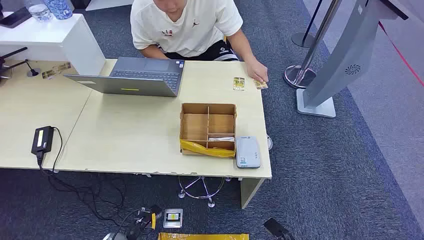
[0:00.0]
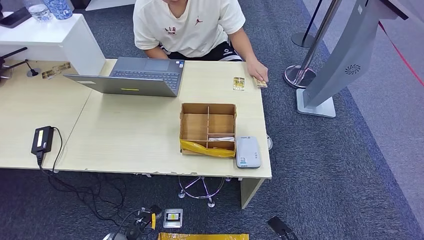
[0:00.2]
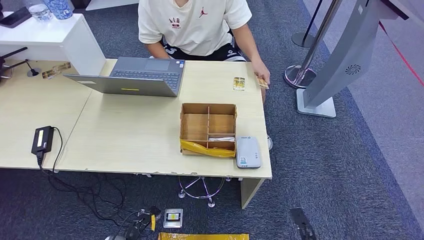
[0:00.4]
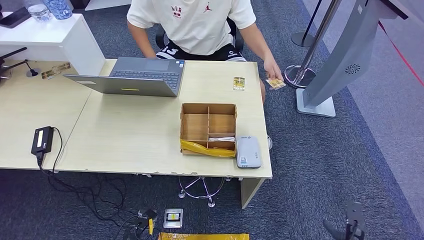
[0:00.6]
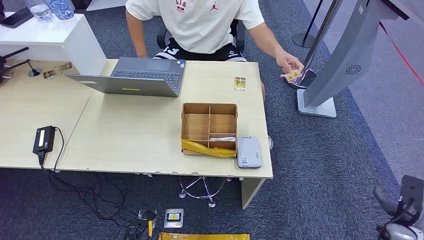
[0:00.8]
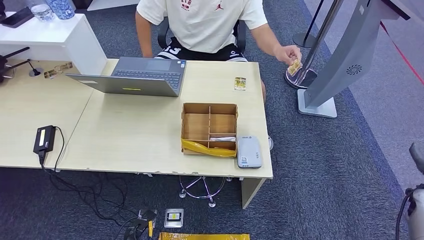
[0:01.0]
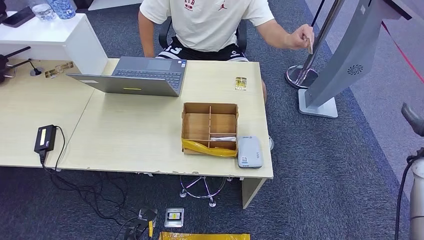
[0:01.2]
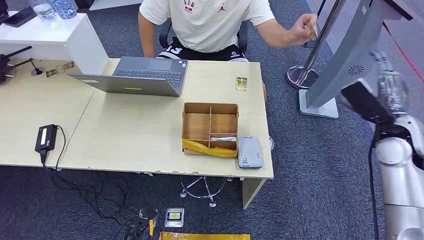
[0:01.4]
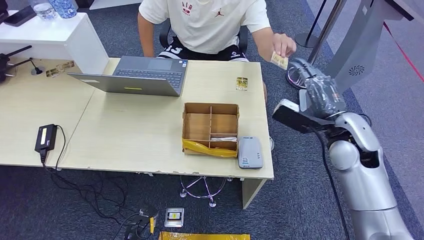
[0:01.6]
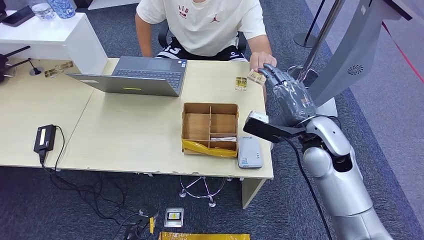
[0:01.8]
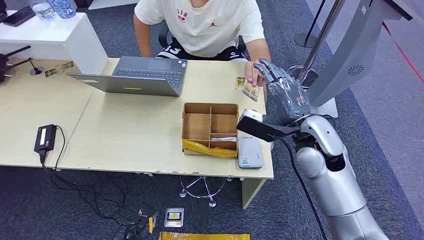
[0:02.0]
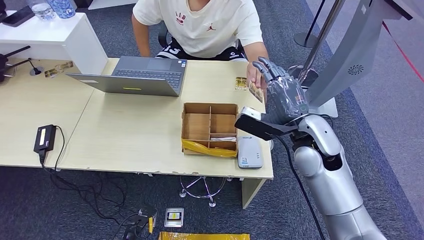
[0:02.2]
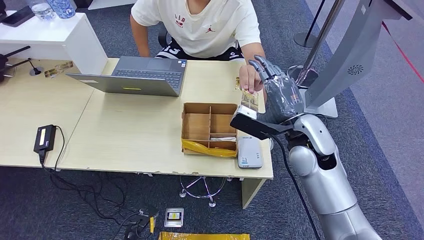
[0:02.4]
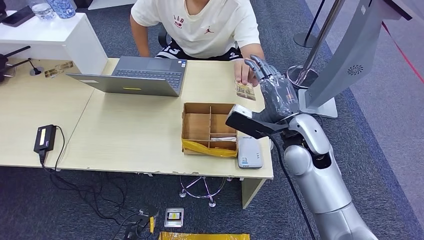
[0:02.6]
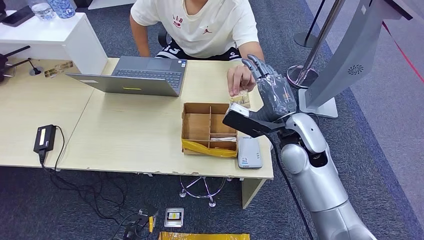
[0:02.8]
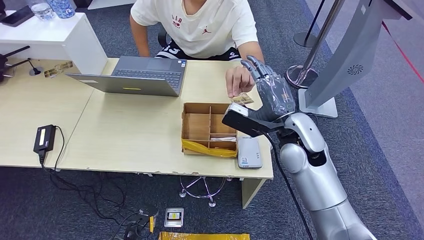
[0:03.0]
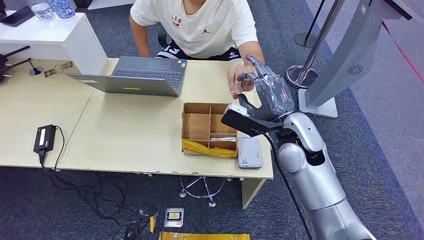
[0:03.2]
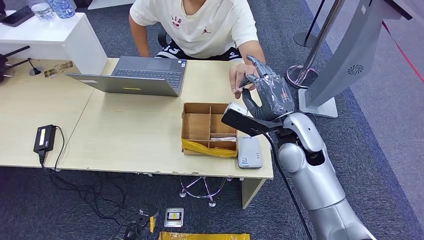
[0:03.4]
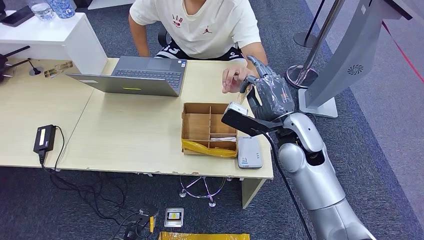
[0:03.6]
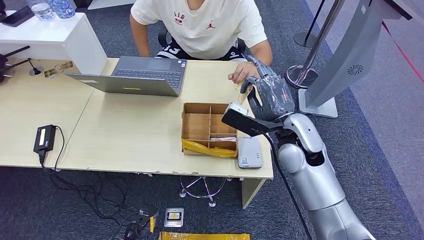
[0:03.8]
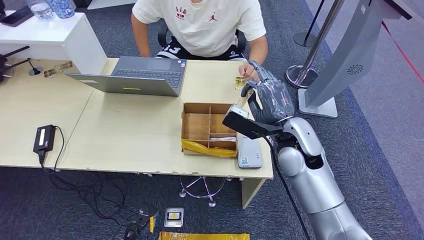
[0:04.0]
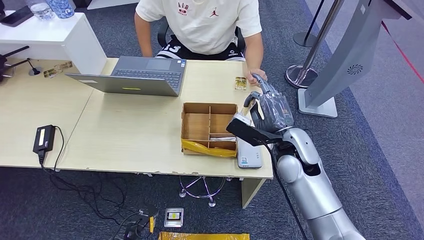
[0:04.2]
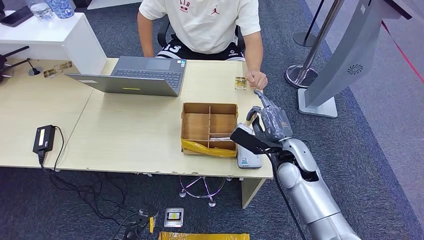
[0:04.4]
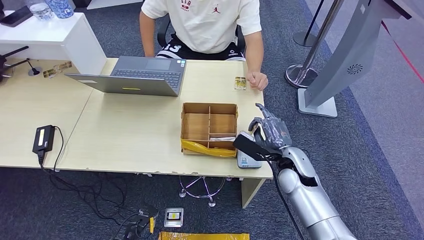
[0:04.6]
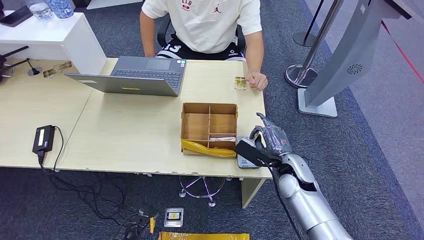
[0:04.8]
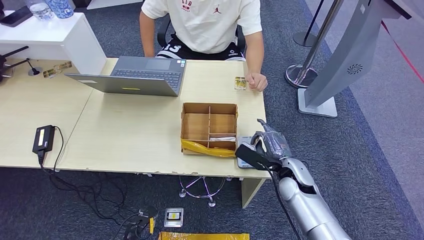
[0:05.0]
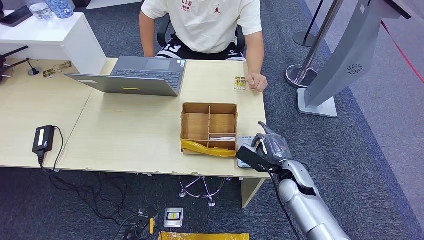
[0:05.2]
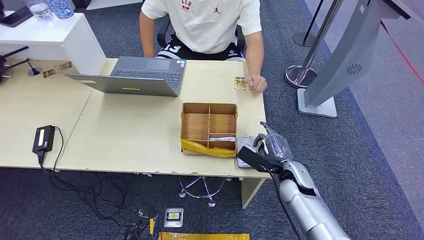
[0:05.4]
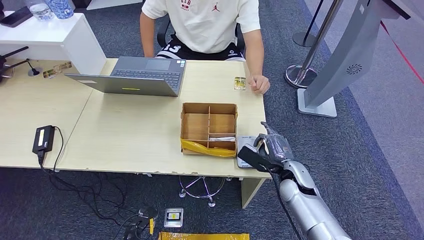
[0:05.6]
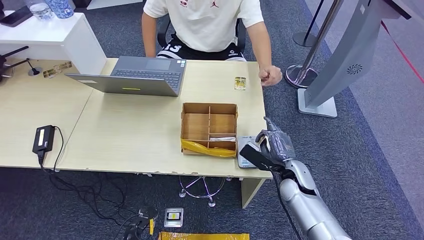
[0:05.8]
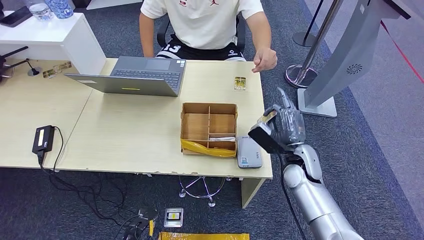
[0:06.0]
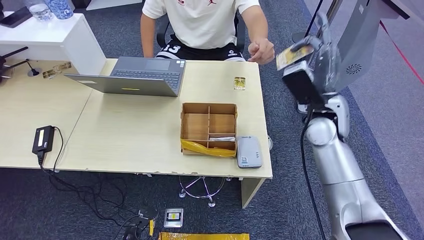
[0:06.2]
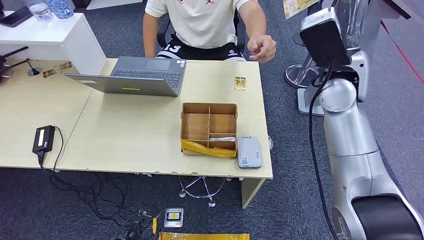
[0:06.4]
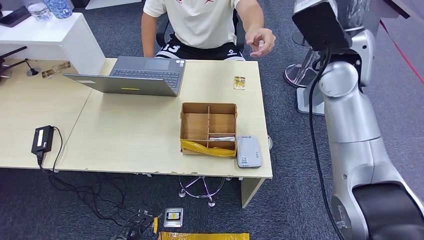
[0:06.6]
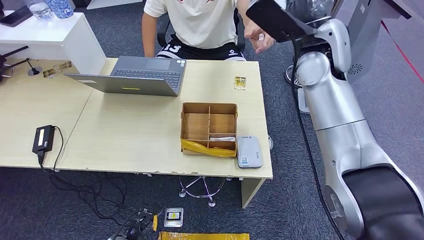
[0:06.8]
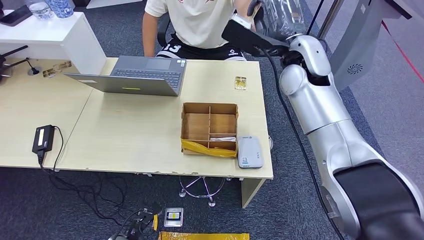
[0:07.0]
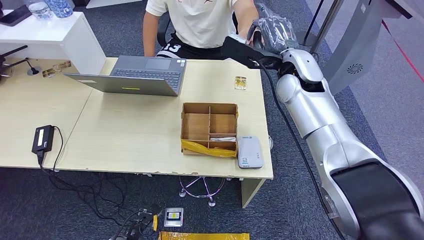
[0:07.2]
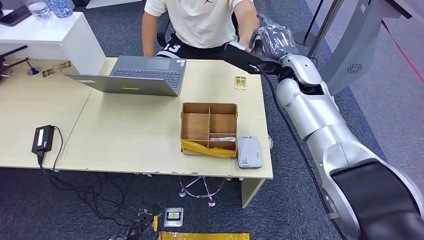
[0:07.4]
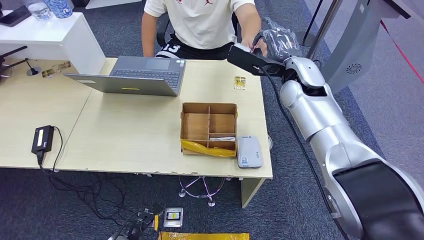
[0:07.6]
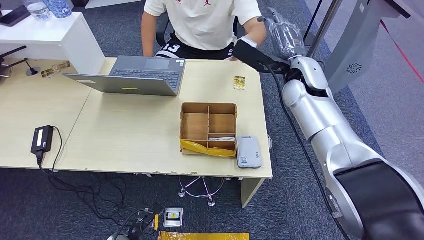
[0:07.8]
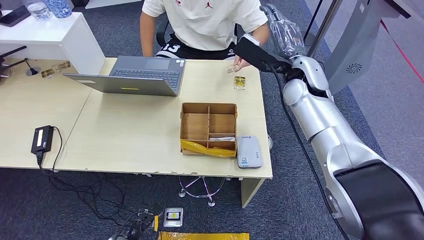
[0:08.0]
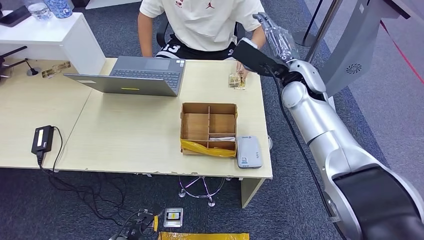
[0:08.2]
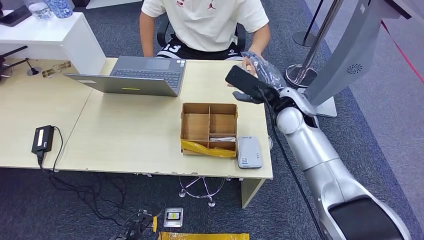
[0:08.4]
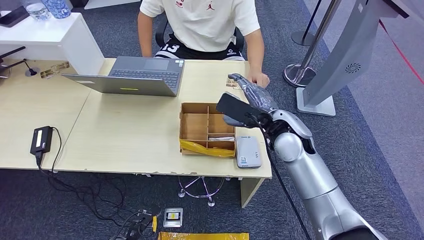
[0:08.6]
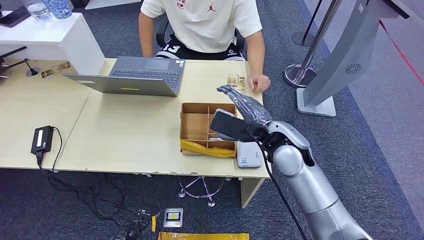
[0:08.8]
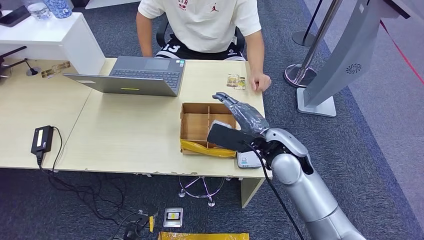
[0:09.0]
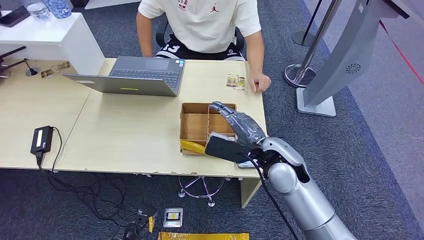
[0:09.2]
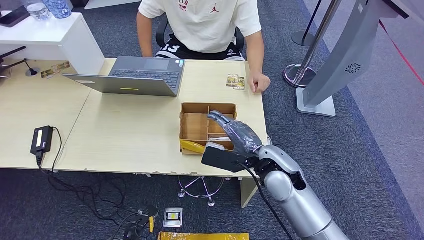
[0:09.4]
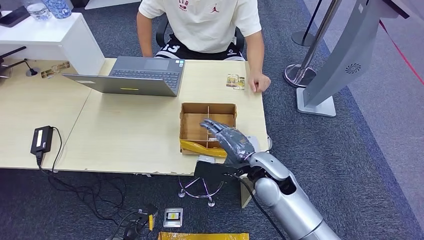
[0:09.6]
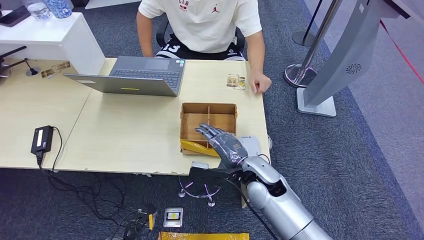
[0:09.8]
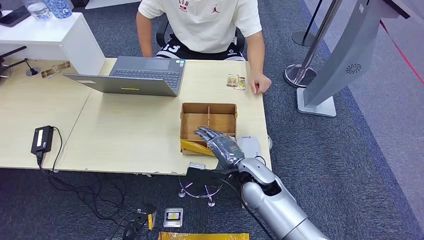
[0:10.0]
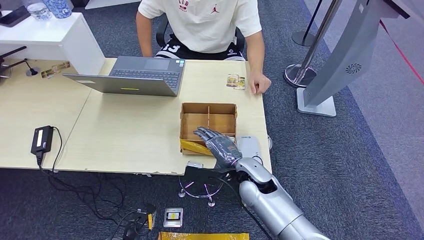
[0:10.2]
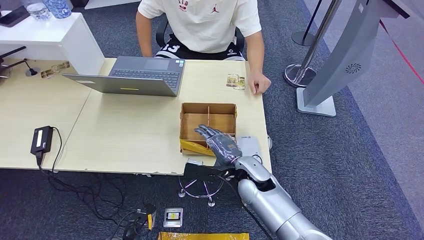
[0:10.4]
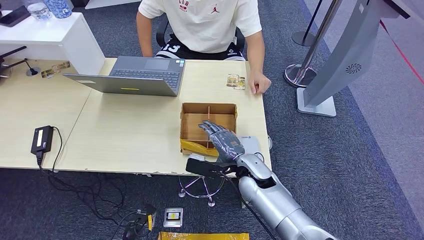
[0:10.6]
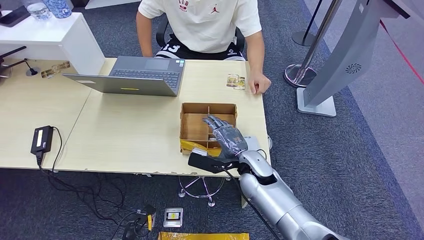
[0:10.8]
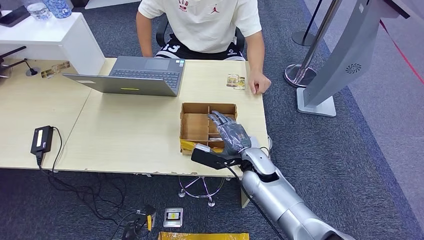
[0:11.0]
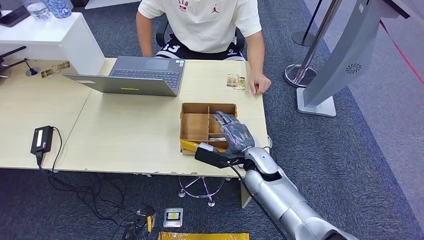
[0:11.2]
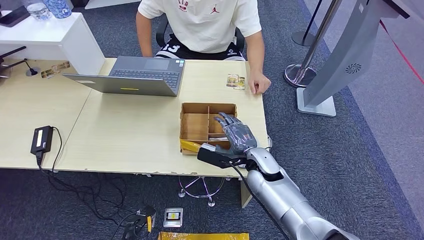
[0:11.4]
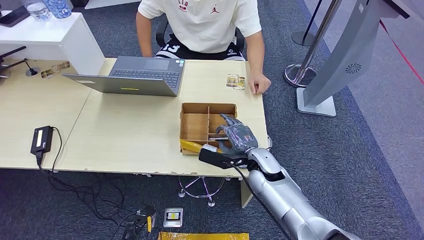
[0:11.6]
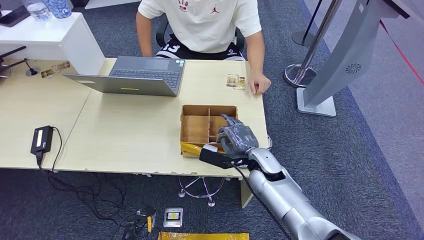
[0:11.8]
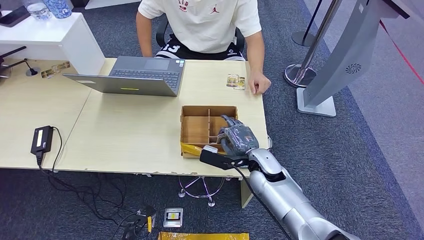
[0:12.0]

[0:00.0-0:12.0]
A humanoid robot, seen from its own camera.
Step, 0:00.0 to 0:04.4: Take the ID card from the person's hand.
Step, 0:04.6 to 0:05.6: Place the ID card on the card reader.
Step, 0:05.8 to 0:07.8: Hand the ID card to the person.
0:03.0 to 0:04.4: The right hand shifts some 10 cm downward.
0:09.0 to 0:10.4: The right hand goes some 10 cm downward.
0:10.4 to 0:12.0: The hands stay close to where they were, moving slightly.

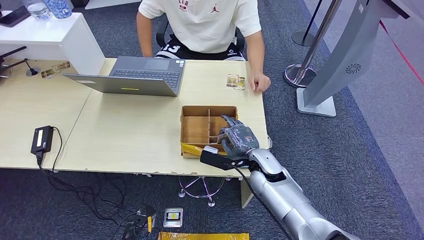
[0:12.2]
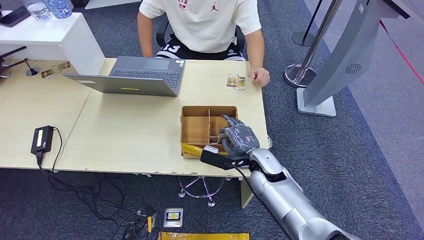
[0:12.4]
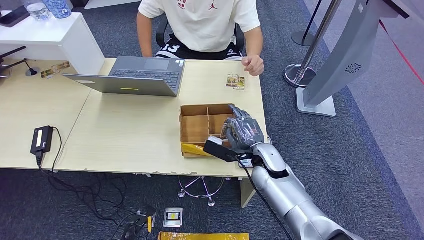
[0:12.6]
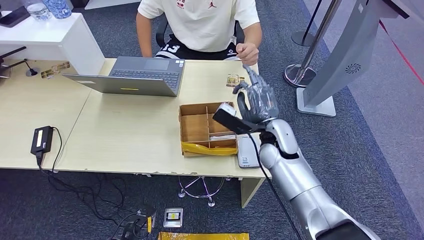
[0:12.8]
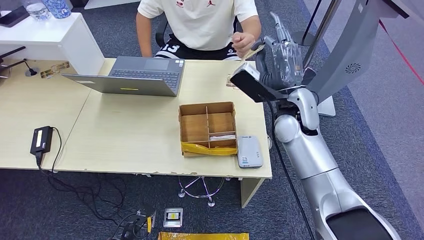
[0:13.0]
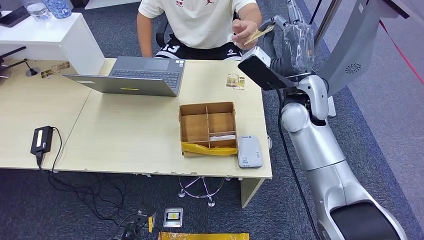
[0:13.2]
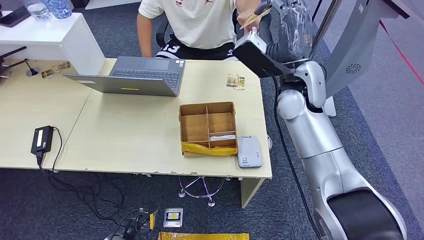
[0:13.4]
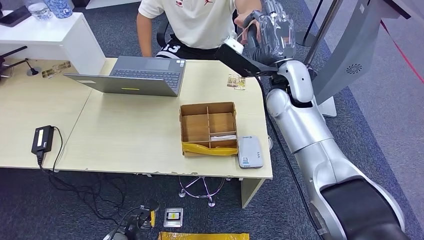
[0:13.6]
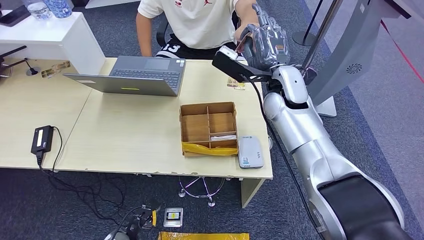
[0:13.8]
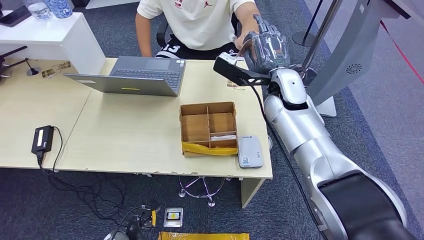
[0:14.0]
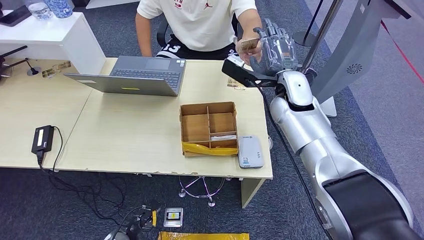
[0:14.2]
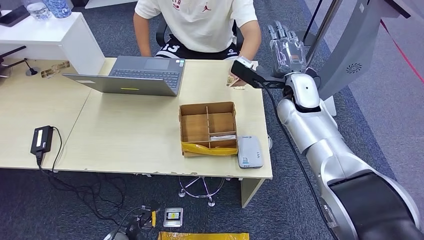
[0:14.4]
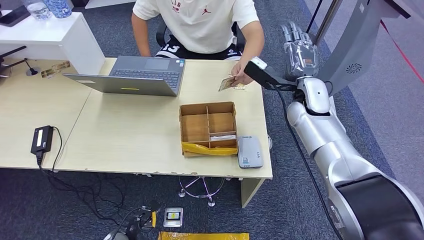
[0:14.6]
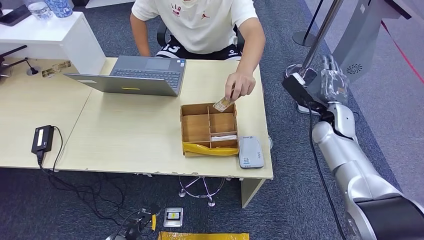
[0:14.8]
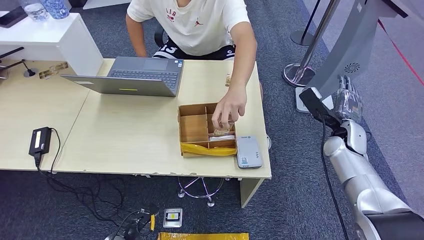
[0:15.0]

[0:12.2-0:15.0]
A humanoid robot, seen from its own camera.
Step, 0:13.0 to 0:15.0: Hand the room key to the person.
